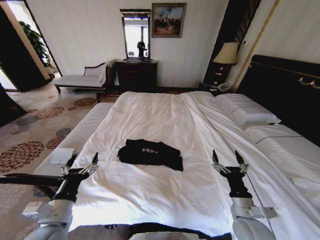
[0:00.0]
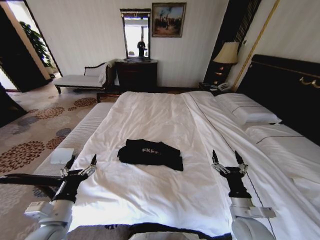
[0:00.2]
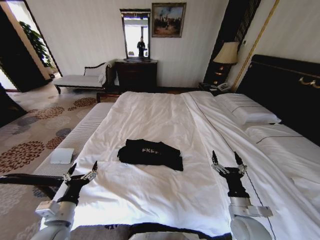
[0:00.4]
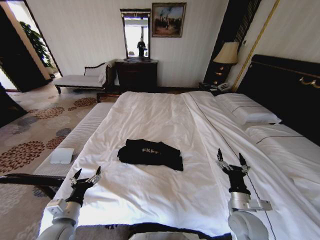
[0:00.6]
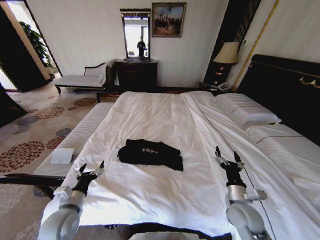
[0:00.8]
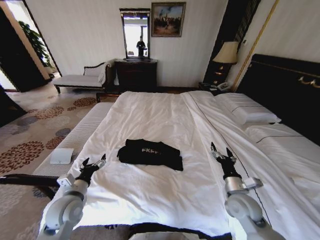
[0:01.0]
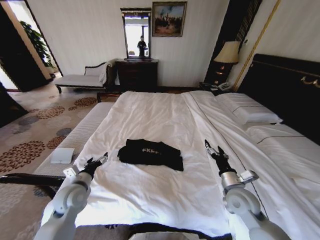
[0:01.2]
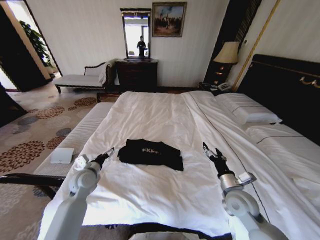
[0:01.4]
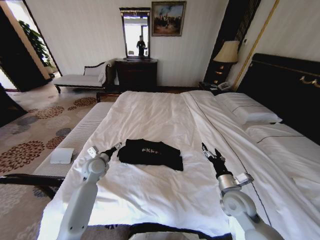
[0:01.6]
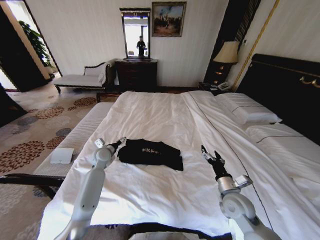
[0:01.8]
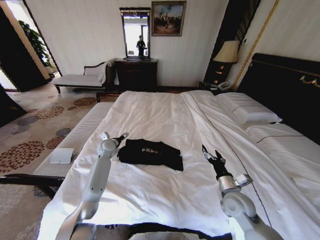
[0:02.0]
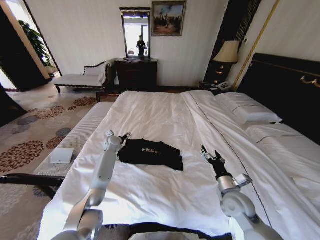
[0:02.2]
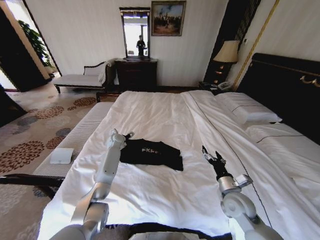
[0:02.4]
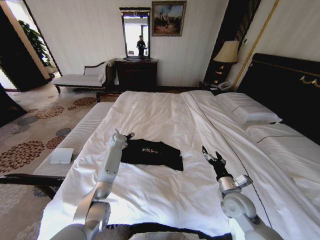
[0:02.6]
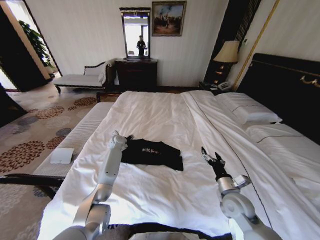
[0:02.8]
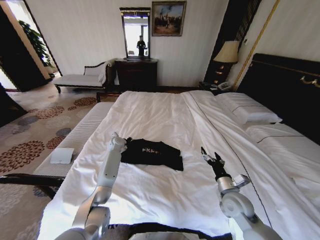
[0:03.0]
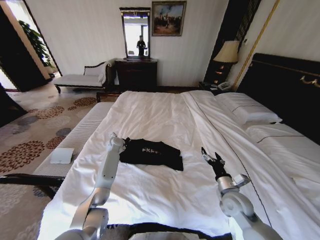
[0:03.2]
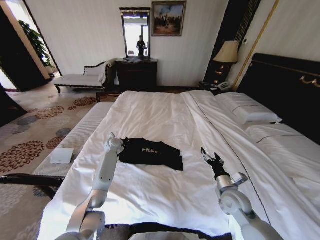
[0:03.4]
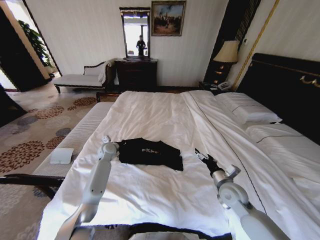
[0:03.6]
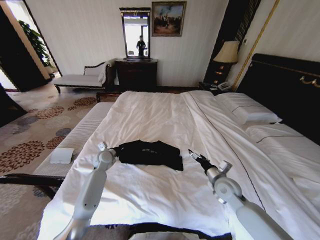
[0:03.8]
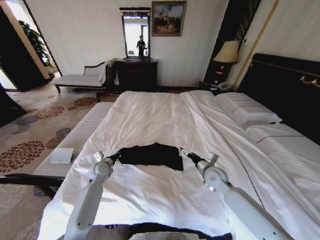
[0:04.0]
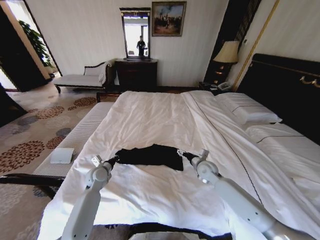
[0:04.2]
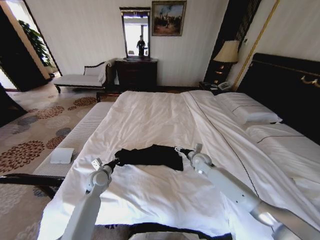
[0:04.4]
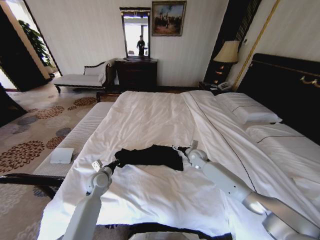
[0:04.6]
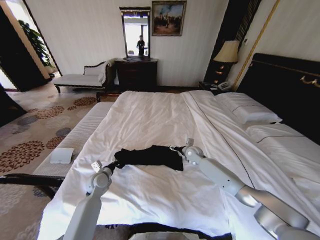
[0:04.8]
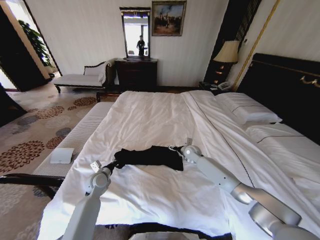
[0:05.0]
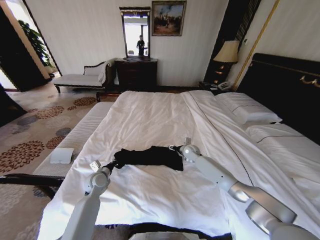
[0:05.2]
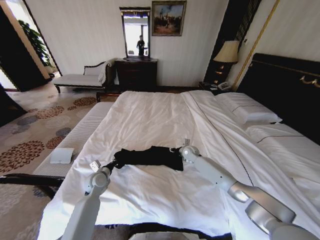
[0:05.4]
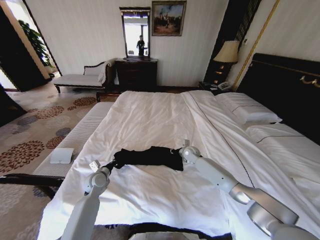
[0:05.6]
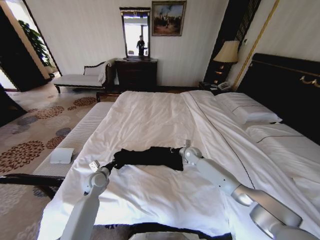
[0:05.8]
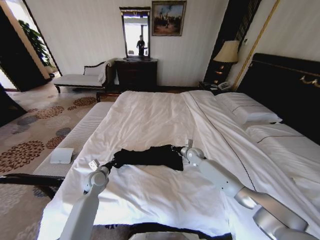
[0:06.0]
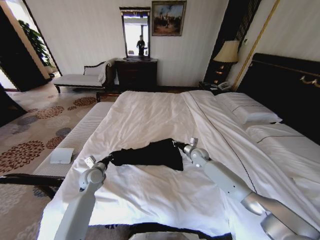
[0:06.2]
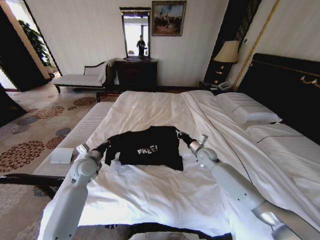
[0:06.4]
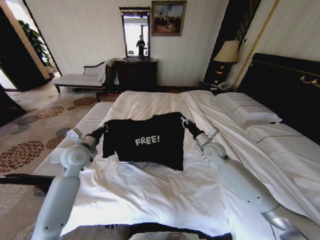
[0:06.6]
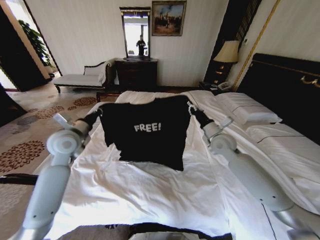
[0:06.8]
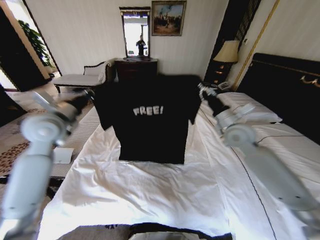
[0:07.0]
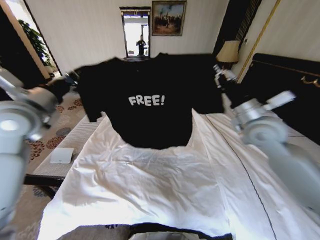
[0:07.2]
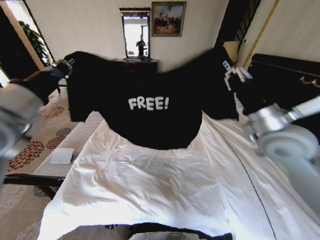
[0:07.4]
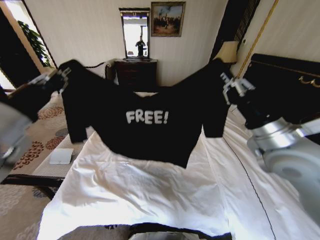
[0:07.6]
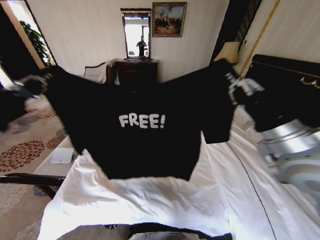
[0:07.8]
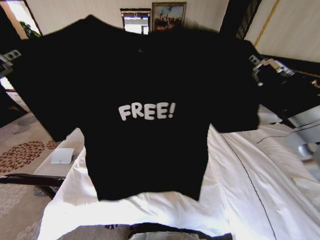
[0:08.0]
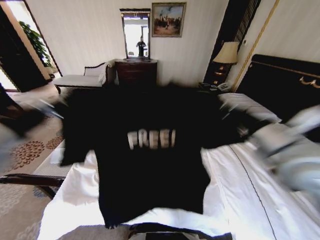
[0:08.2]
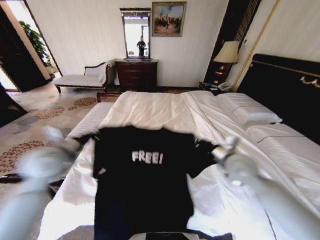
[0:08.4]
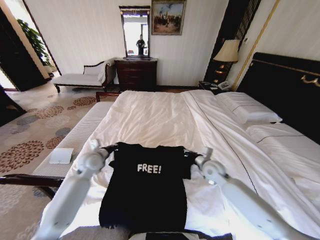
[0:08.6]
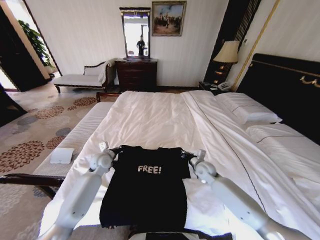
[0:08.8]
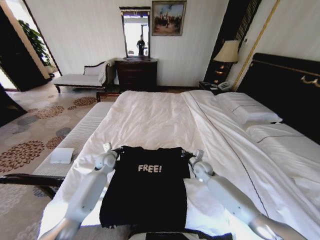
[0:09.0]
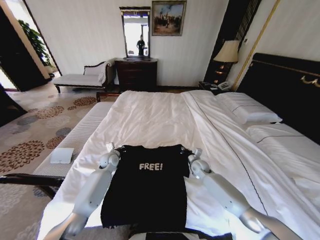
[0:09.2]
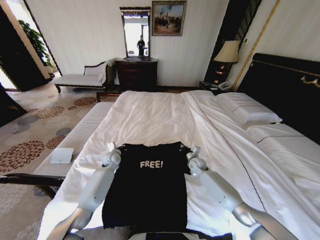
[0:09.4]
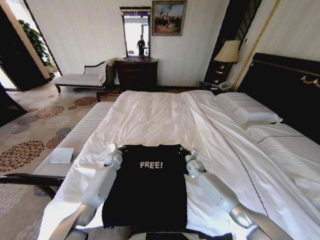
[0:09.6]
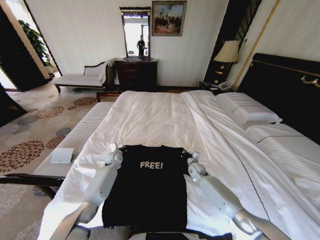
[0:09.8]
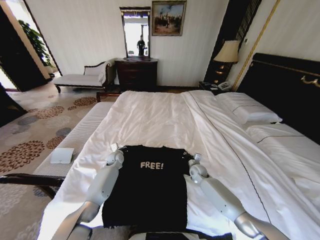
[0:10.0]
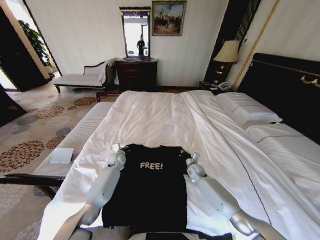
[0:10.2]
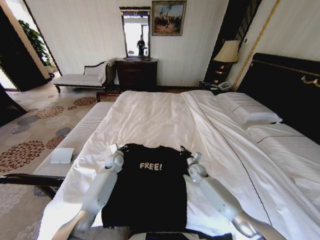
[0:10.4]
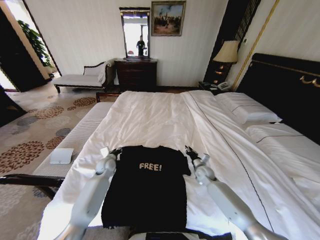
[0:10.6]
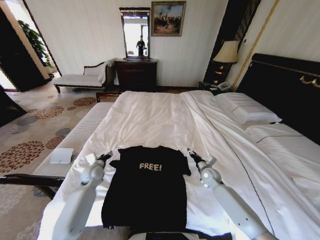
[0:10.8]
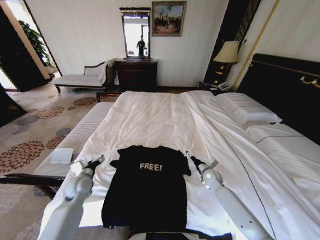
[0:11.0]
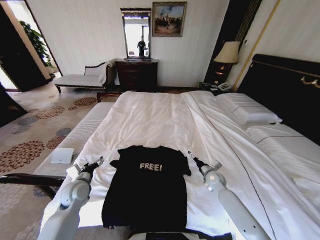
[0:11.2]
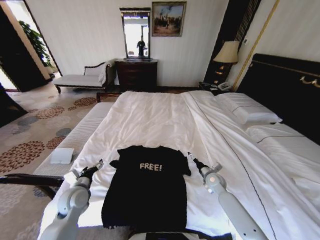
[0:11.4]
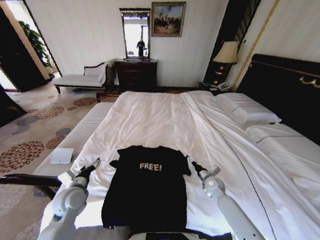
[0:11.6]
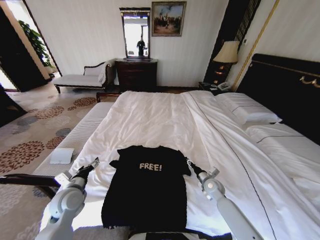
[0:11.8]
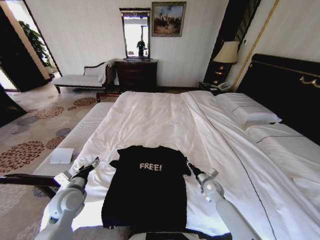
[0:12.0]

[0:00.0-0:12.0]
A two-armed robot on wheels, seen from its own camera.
Task of the whole recording: Fold the clothes on the bed.
0:00.0 to 0:01.6: The right gripper travels forward by roughly 10 cm. The left gripper moves forward, approximately 25 cm.
0:01.6 to 0:03.0: The left gripper travels forward by some 15 cm, and closes up.
0:03.0 to 0:04.4: The left gripper heads backward, covering about 20 cm, and closes, while the right gripper shifts about 20 cm forward.
0:04.4 to 0:06.0: The right gripper changes place by some 5 cm, and closes its fingers.
0:06.0 to 0:07.6: The right gripper moves upward and backward, about 40 cm, while the left gripper moves upward, some 40 cm.
0:07.6 to 0:09.0: The grippers both shift downward and forward by approximately 40 cm.
0:09.0 to 0:10.4: The right gripper shifts roughly 5 cm downward.
0:10.4 to 0:12.0: The right gripper goes some 10 cm backward, and opens, then closes again. The left gripper heads backward, to the left and upward, covering roughly 25 cm, and opens up.

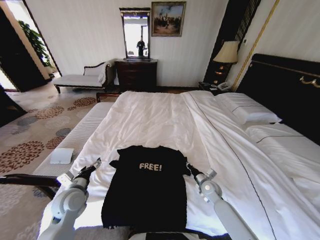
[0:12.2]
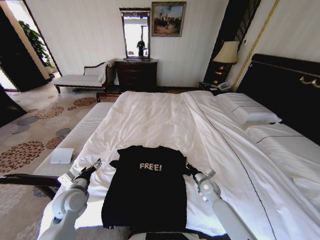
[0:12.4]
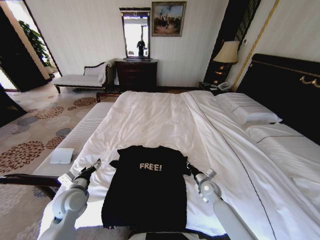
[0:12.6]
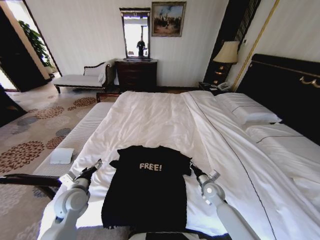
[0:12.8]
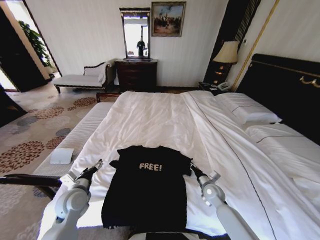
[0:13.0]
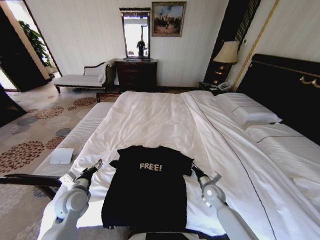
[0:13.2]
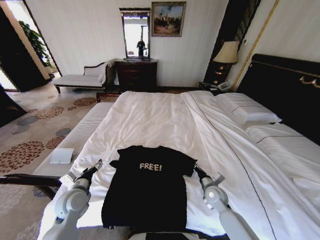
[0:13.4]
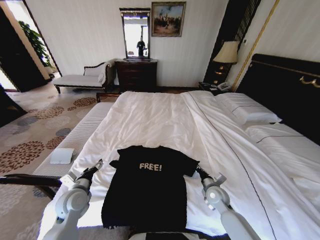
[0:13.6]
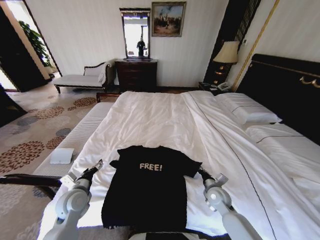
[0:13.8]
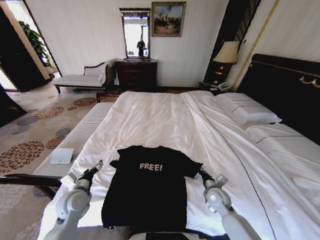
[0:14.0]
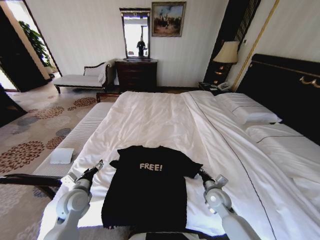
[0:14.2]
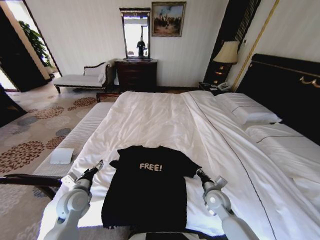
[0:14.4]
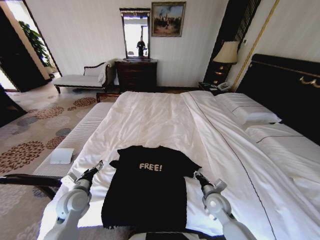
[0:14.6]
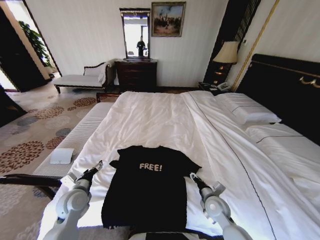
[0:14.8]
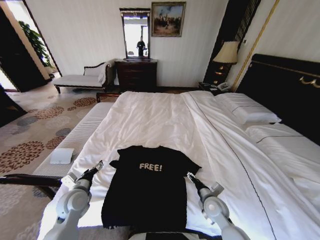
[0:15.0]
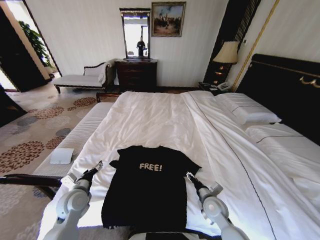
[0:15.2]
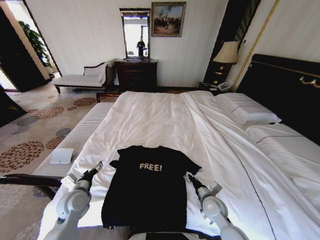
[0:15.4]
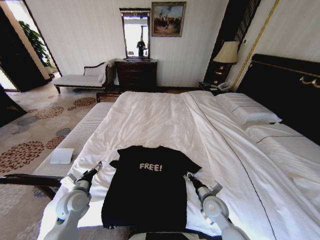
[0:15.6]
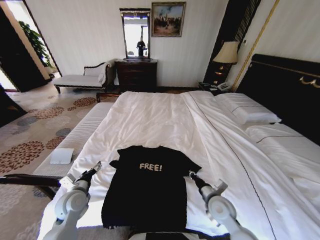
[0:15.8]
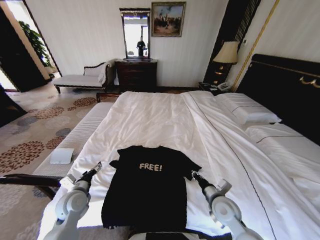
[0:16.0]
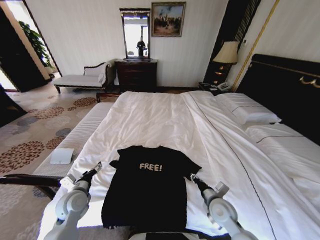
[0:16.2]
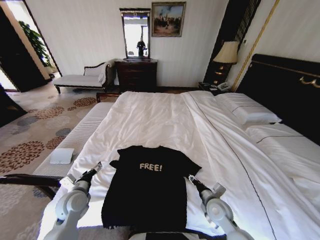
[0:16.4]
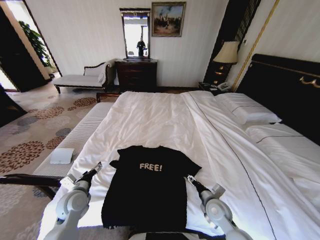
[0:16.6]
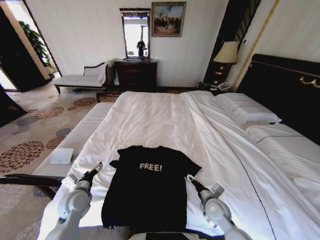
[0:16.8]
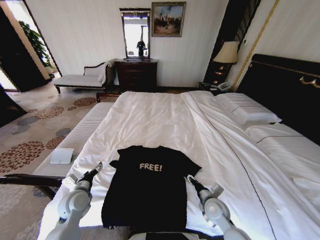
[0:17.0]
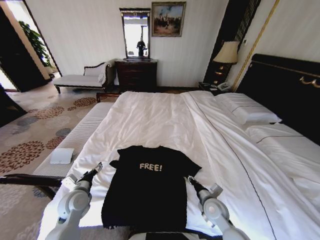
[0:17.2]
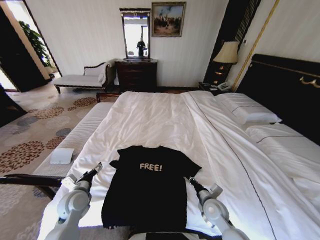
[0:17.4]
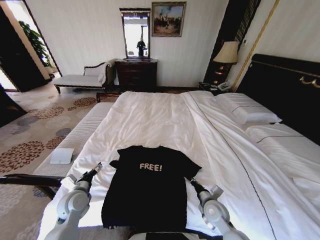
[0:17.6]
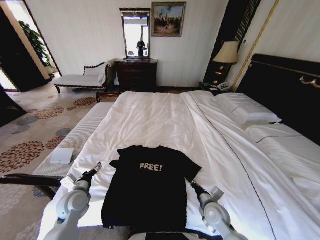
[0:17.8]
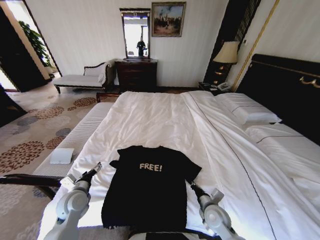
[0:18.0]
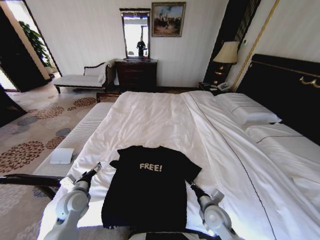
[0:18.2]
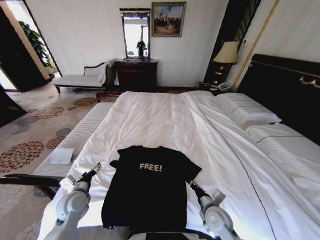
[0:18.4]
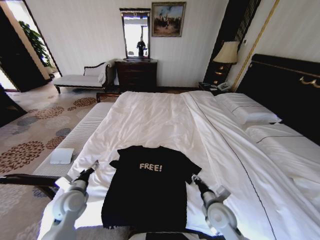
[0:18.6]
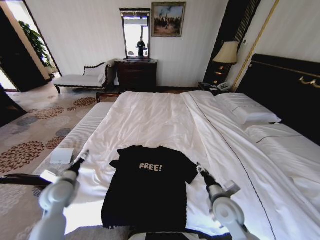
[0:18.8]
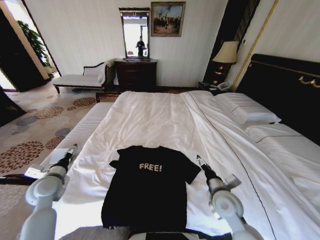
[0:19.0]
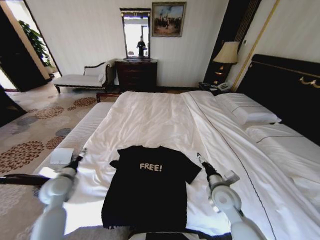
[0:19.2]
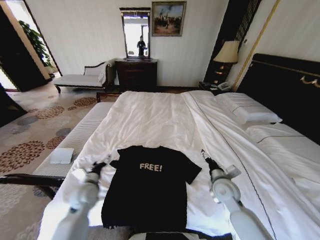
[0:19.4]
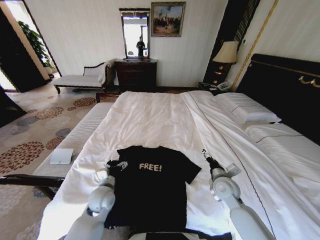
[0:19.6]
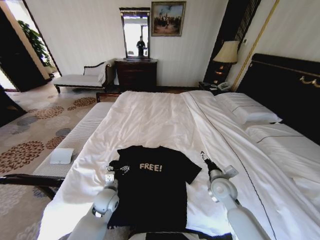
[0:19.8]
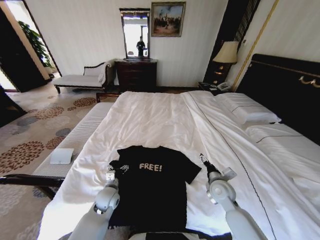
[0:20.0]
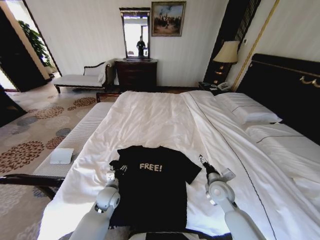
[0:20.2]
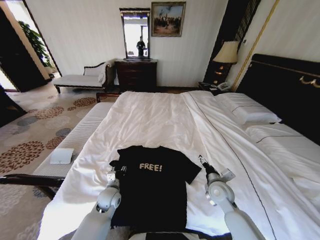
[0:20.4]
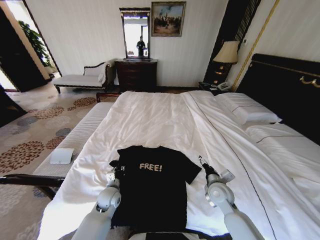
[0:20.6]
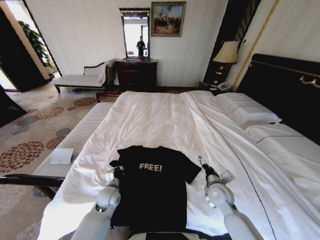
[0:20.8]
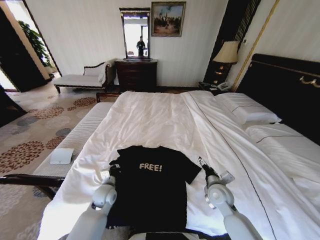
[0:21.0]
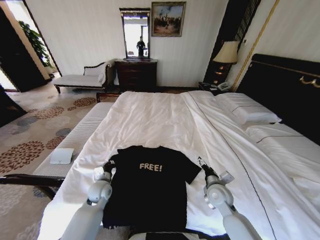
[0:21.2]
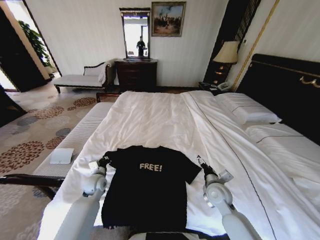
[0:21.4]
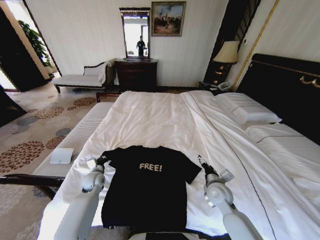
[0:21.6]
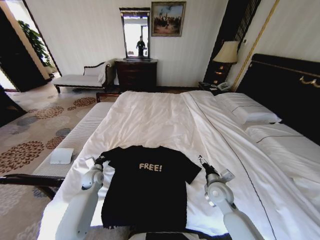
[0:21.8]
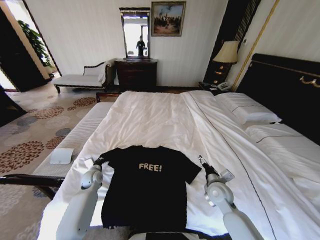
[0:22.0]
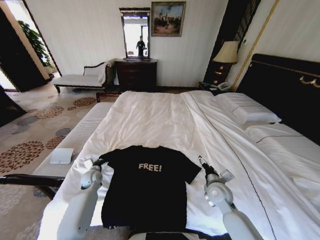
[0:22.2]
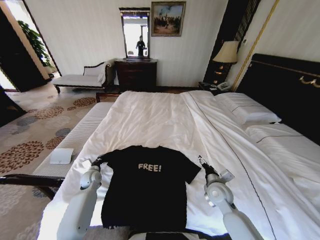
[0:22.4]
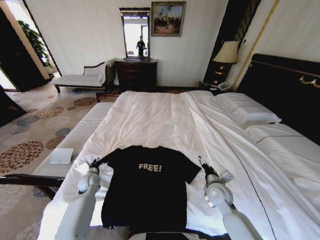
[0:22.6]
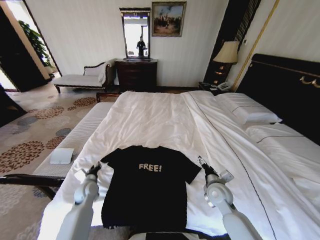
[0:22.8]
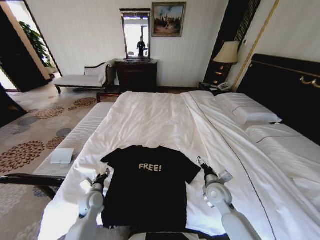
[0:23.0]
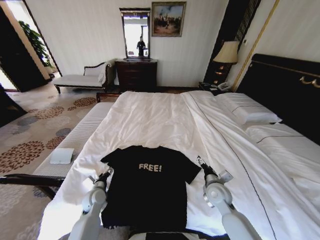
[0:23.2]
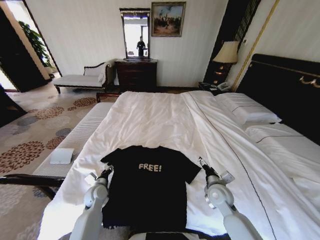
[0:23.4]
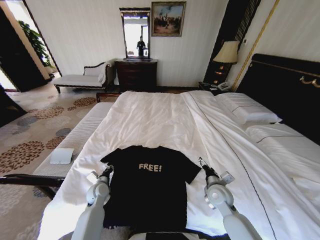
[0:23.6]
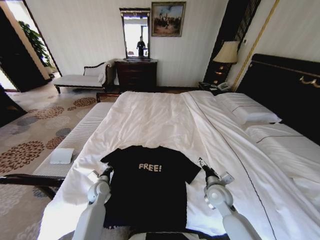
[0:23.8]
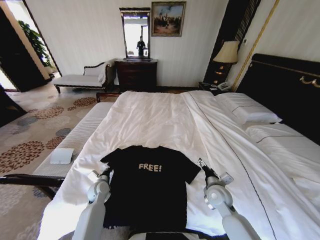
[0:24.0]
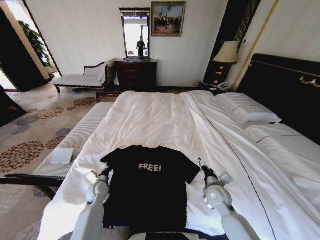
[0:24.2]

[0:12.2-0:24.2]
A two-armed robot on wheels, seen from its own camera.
Task of the whole recording: Fold the clothes on the bed.
0:12.2 to 0:13.8: The right gripper shifts by about 5 cm.
0:13.8 to 0:15.2: The right gripper moves about 5 cm, and opens.
0:15.2 to 0:16.6: The right gripper closes, then reopens.
0:16.6 to 0:18.2: The right gripper closes up.
0:18.2 to 0:19.8: The right gripper goes roughly 10 cm forward and upward, and opens up. The left gripper is displaced to the right and downward by approximately 10 cm.
0:19.8 to 0:21.2: The left gripper goes roughly 5 cm to the left, and closes.
0:21.2 to 0:22.6: The left gripper moves to the left, approximately 5 cm.
0:22.6 to 0:24.2: The left gripper travels to the right by approximately 5 cm, and opens, then closes once more.
